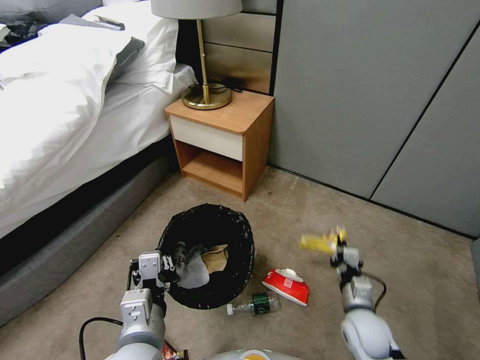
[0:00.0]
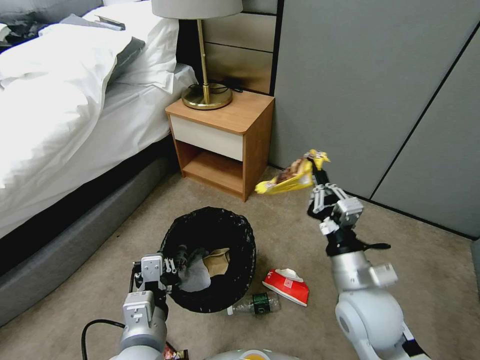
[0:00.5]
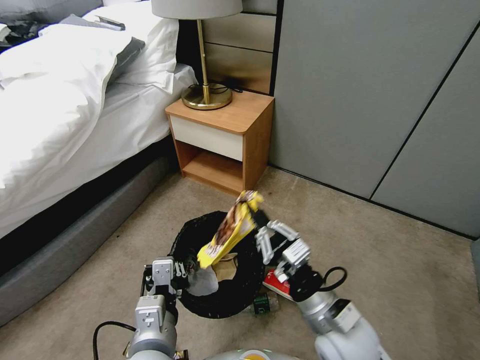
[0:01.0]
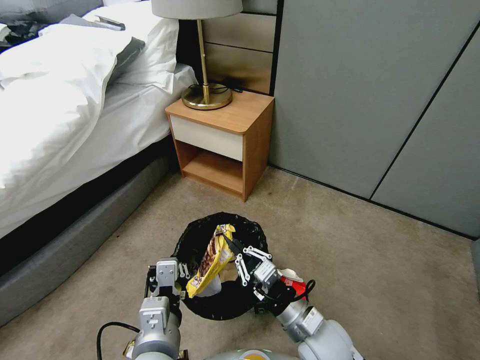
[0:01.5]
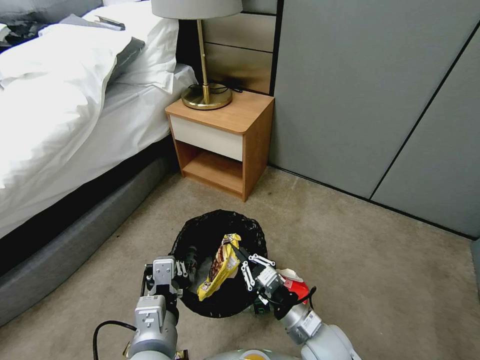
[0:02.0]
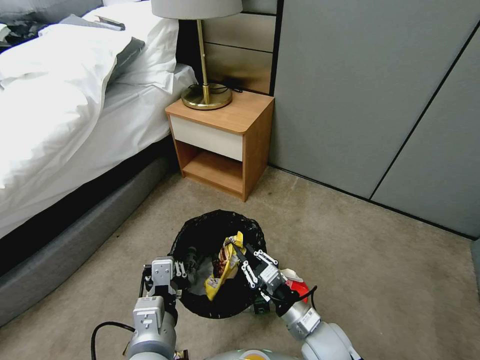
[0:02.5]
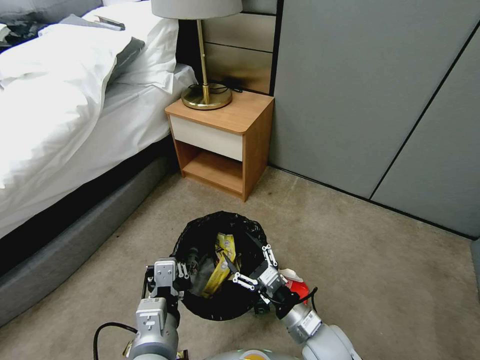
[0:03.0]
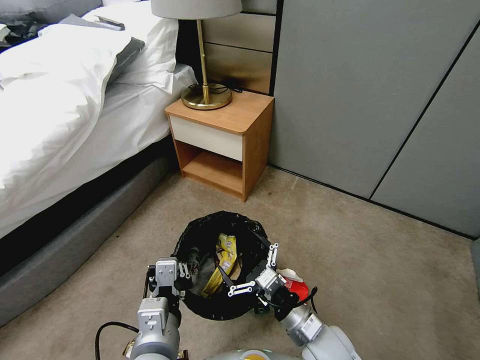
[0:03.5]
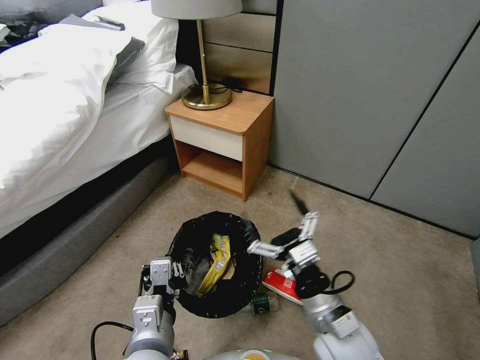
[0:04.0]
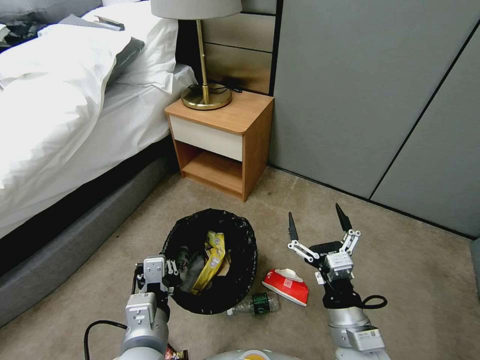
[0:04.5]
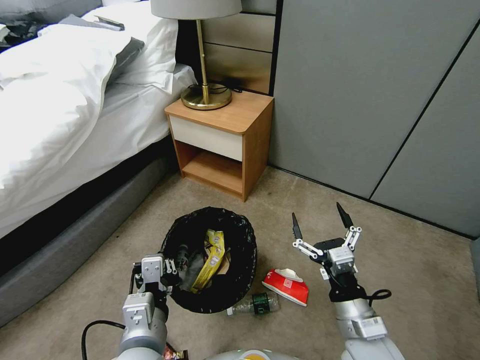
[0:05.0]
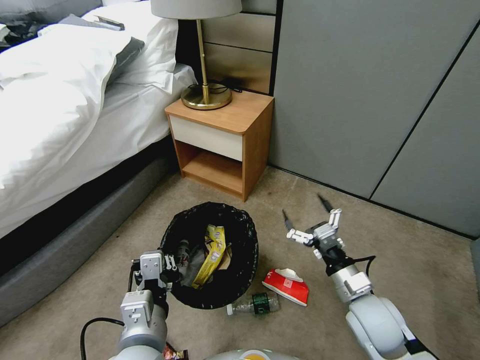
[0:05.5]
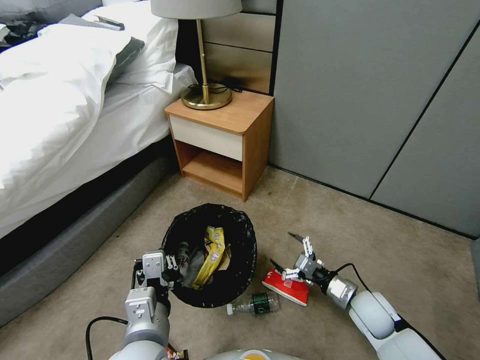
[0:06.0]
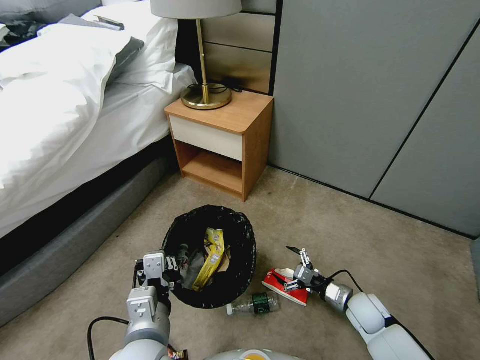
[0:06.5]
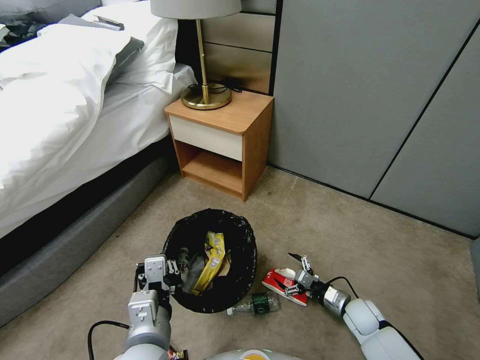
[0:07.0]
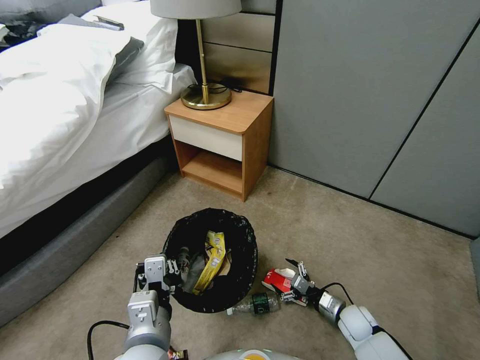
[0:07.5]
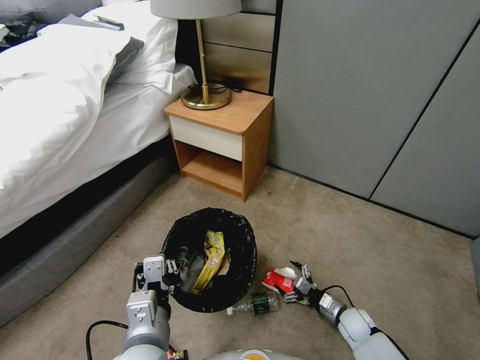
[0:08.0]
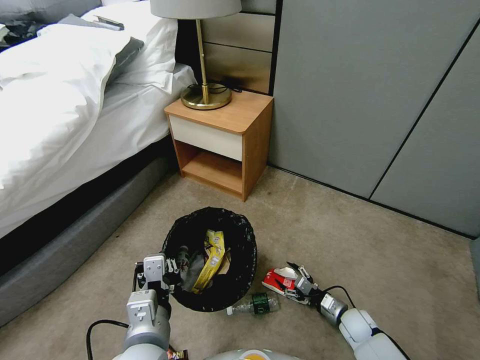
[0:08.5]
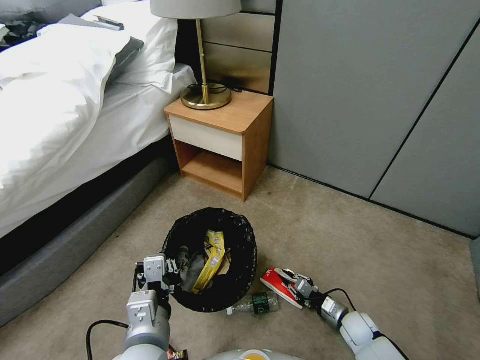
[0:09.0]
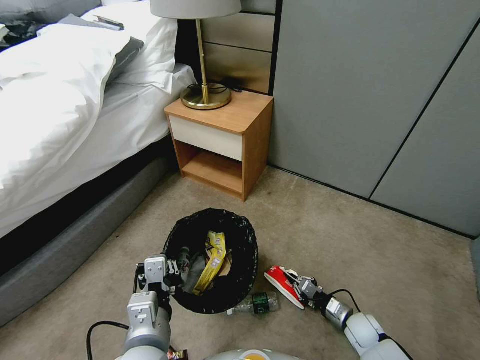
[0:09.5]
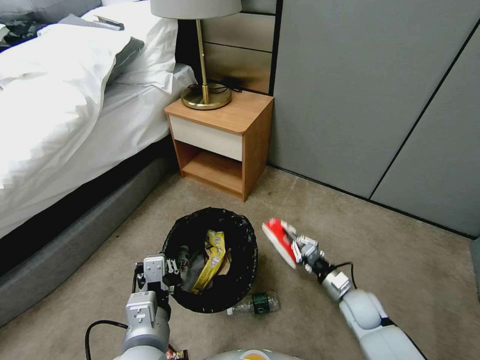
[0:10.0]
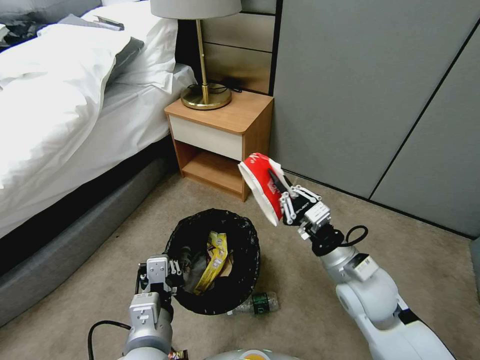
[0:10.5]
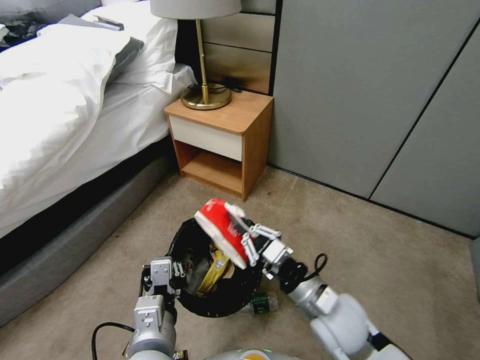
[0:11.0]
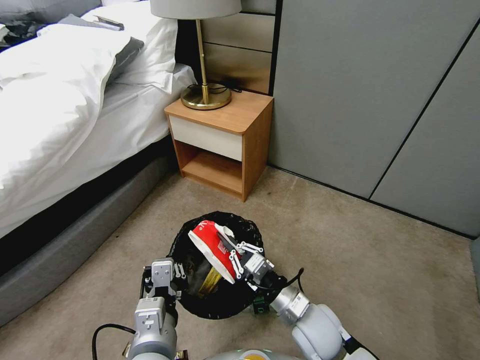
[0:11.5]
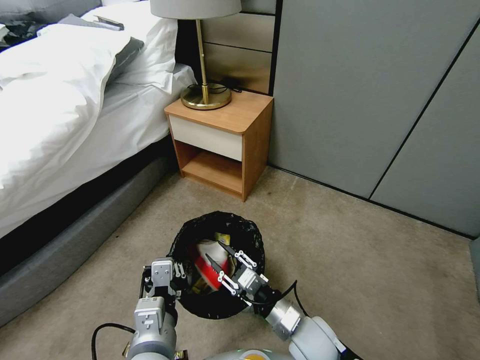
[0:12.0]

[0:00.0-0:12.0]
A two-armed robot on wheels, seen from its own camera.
Task of the whole recording: Pick up the trash bin, then pick up the garbage from the floor and place it into the trash bin.
0:00.0 to 0:02.0: The right gripper is displaced to the left by approximately 10 cm, and travels upward and back again, approximately 15 cm each way.
0:02.0 to 0:04.0: The right gripper moves upward, about 10 cm, and opens up.
0:04.0 to 0:06.0: The right gripper is displaced downward, to the right and forward by roughly 20 cm.
0:06.0 to 0:08.0: The right gripper is displaced downward by about 15 cm.
0:08.0 to 0:10.0: The right gripper goes roughly 15 cm upward, and closes its fingers.
0:10.0 to 0:12.0: The right gripper is displaced to the left and backward by about 20 cm, travels upward and back again, about 20 cm each way, and opens up.

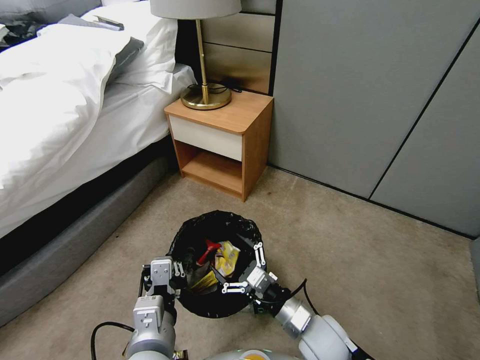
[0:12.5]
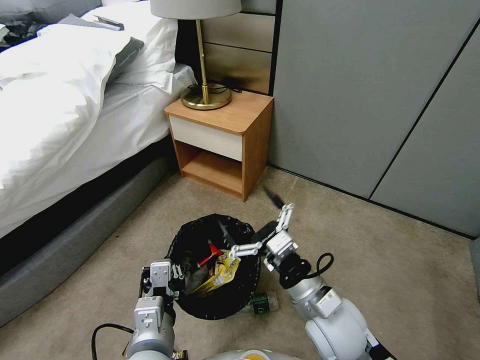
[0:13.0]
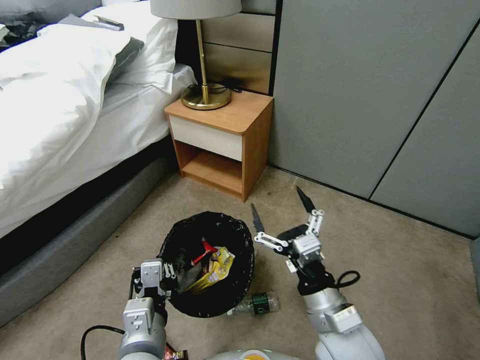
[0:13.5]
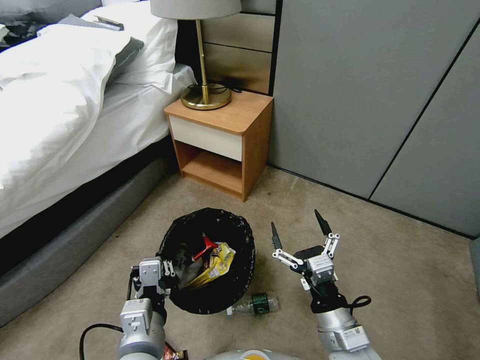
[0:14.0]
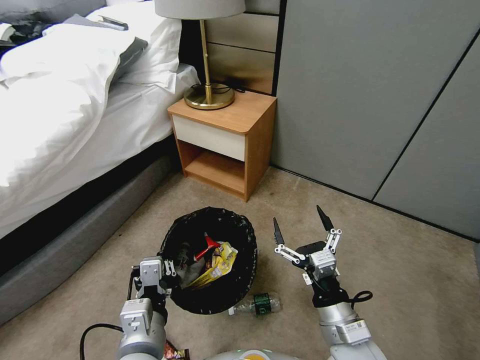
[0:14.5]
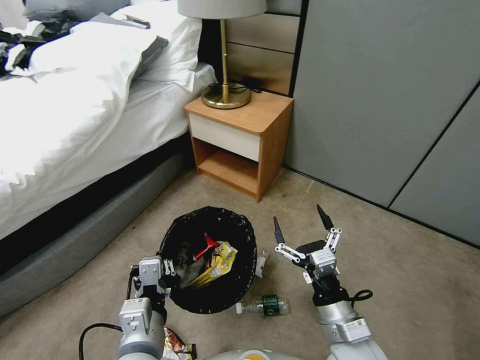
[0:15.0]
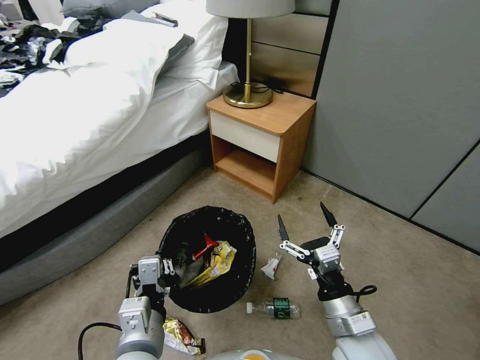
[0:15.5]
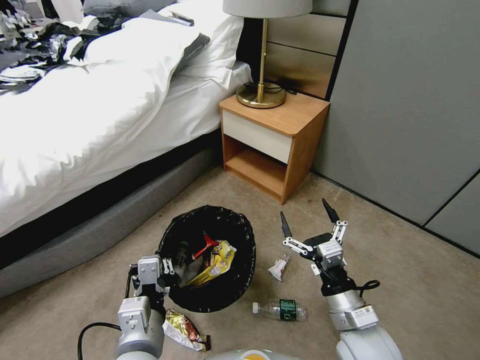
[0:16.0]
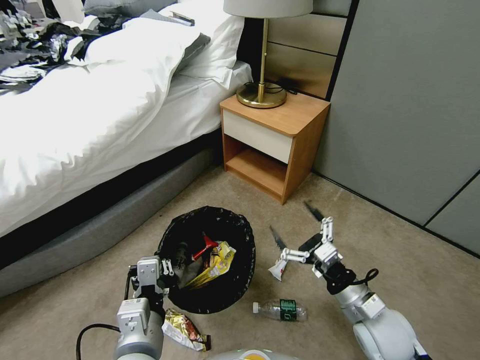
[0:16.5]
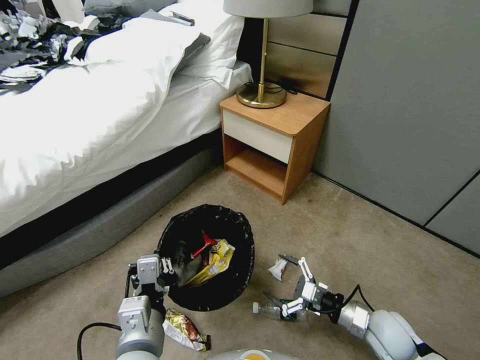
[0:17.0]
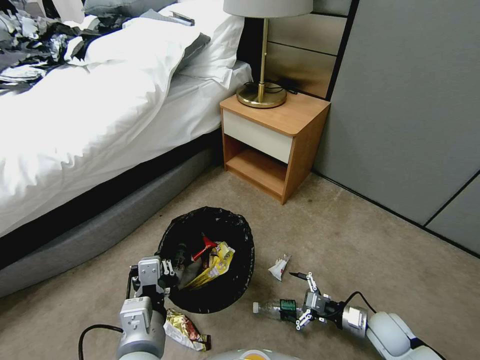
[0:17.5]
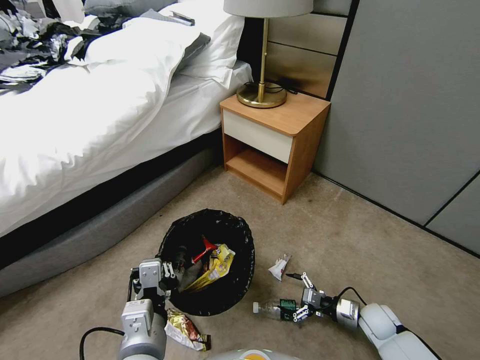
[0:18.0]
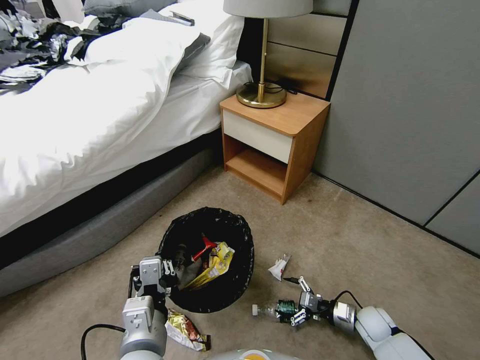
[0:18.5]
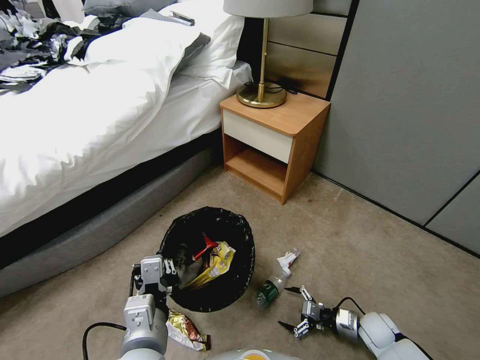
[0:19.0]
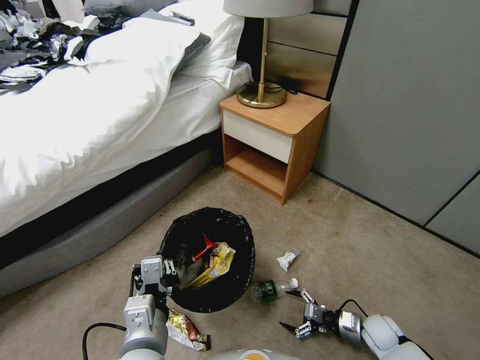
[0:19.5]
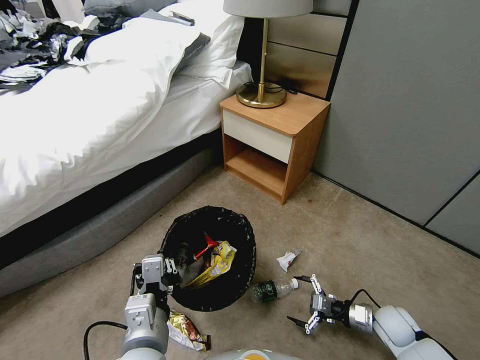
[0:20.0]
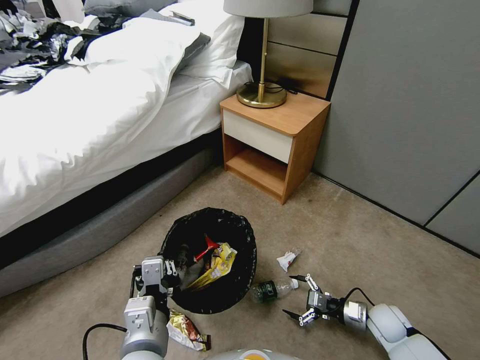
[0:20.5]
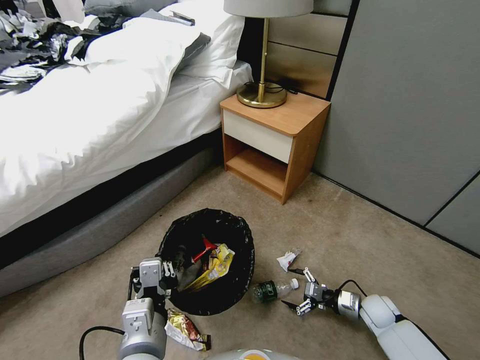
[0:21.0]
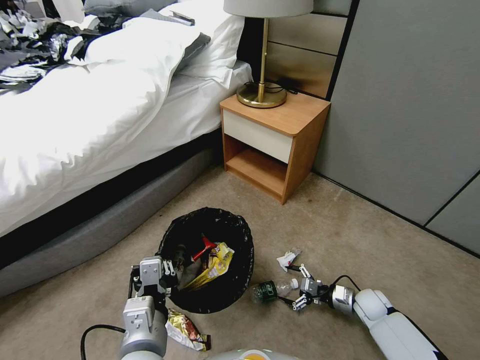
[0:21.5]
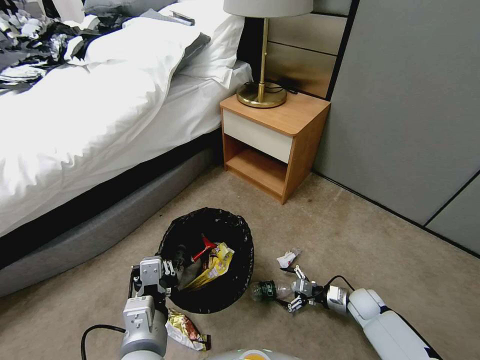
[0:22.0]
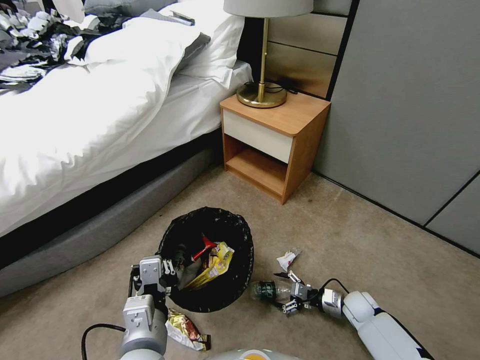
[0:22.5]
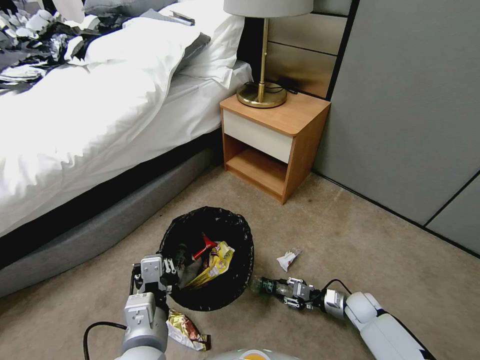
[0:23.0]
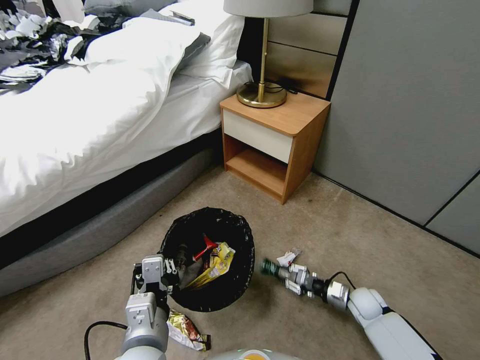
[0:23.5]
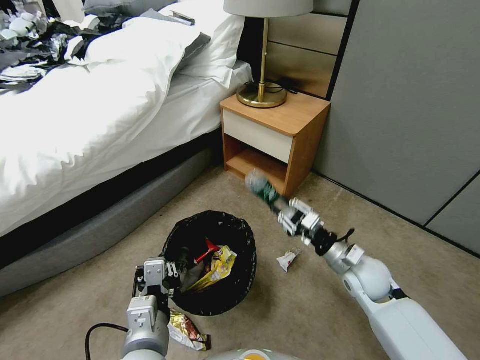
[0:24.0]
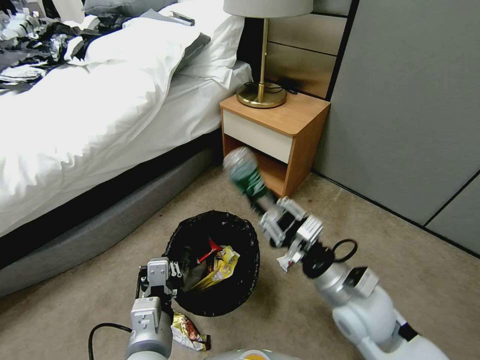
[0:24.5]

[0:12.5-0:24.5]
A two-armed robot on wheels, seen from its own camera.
Task of the whole recording: Pick up the trash bin, then pick up the garbage from the floor and place it into the trash bin.
0:12.5 to 0:14.5: The right gripper heads upward, covering about 5 cm.
0:14.5 to 0:16.5: The right gripper goes some 10 cm to the right and forward.
0:16.5 to 0:18.5: The right gripper heads downward and to the right, covering about 25 cm.
0:18.5 to 0:20.5: The grippers stay close to where they were, moving slightly.
0:20.5 to 0:22.5: The right gripper moves downward, approximately 5 cm.
0:22.5 to 0:24.5: The right gripper is displaced upward and to the left by roughly 35 cm, and closes its fingers.

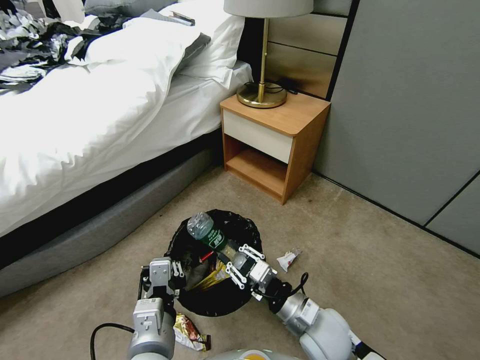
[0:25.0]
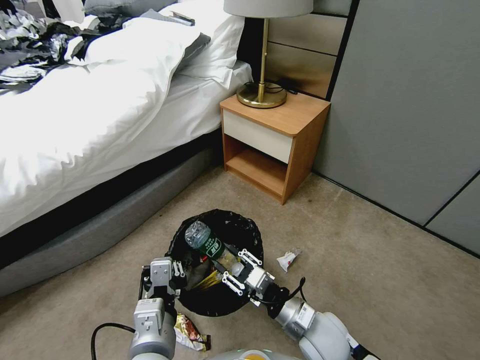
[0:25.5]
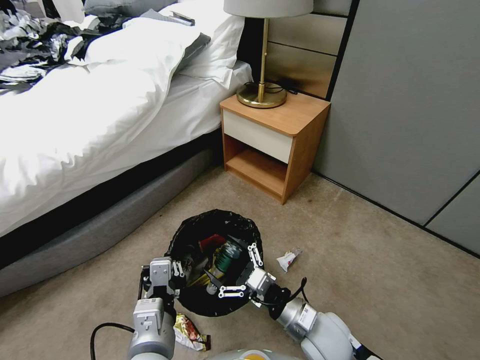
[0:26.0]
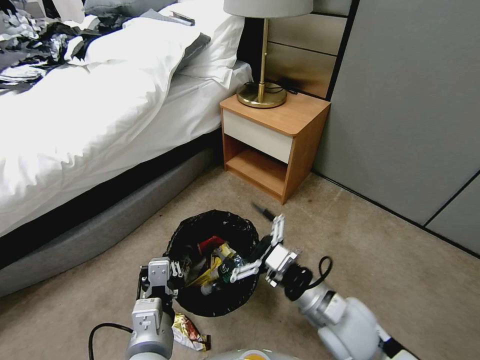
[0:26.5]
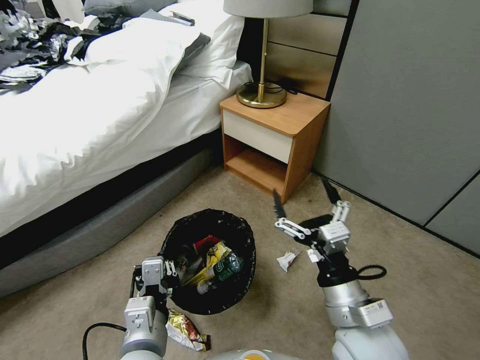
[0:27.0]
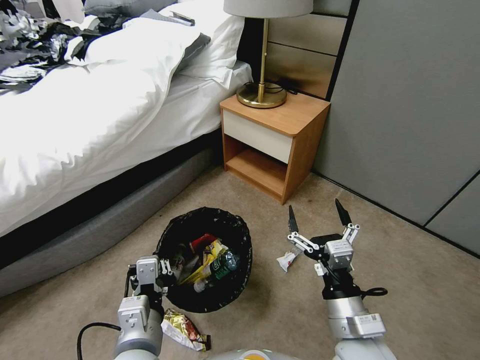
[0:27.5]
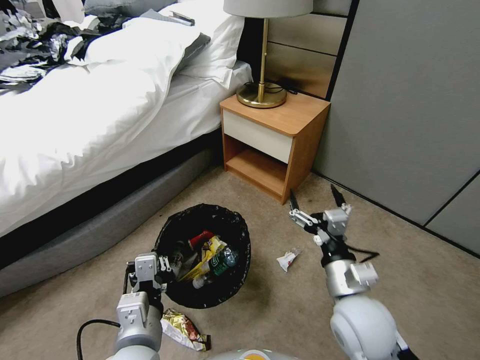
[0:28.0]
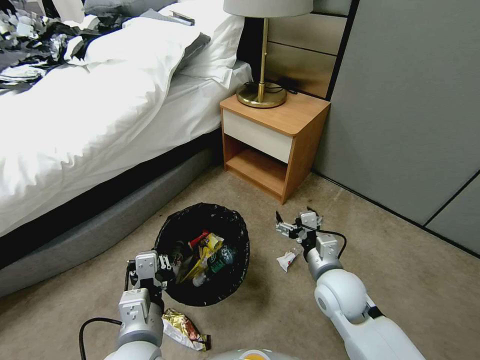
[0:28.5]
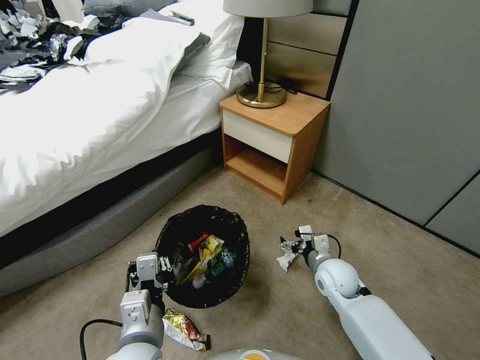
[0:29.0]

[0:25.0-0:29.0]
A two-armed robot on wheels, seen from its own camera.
Task of the whole recording: Pick up the trash bin, then pick up the garbage from the floor and place it into the trash bin.
0:25.0 to 0:27.0: The right gripper goes roughly 10 cm upward, and opens.
0:27.0 to 0:29.0: The right gripper goes roughly 20 cm downward and forward.
